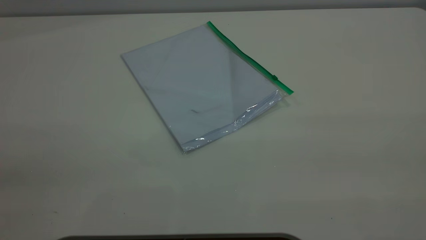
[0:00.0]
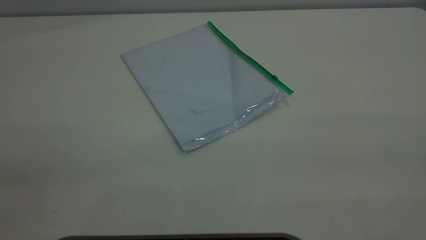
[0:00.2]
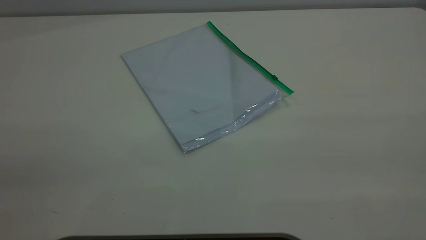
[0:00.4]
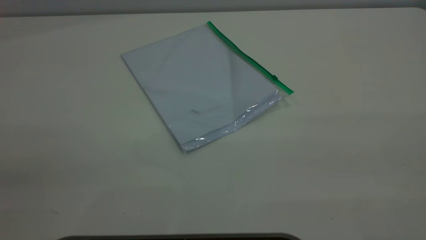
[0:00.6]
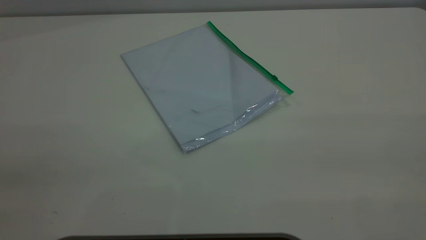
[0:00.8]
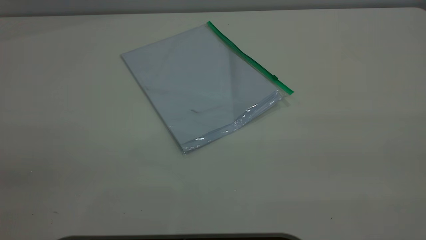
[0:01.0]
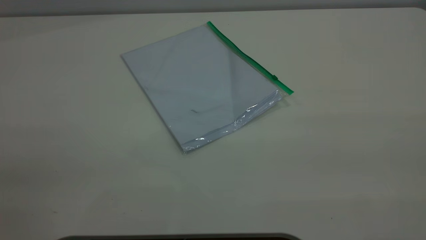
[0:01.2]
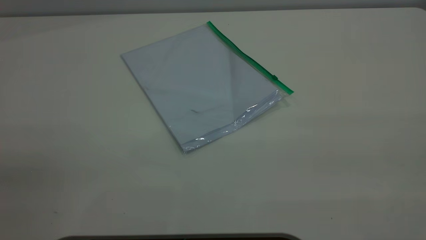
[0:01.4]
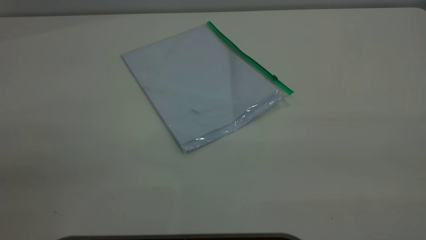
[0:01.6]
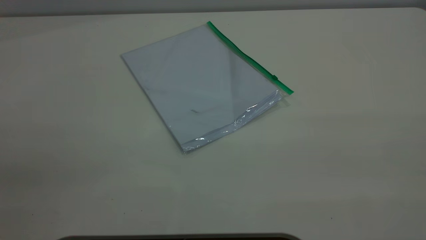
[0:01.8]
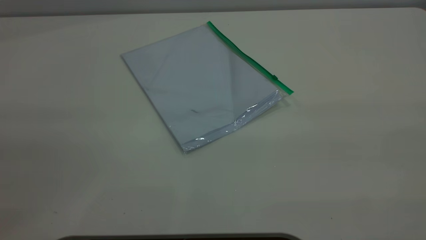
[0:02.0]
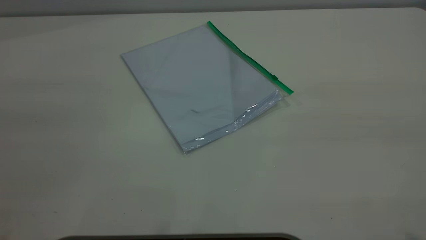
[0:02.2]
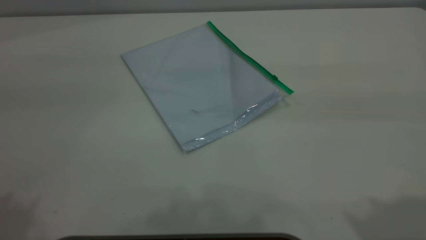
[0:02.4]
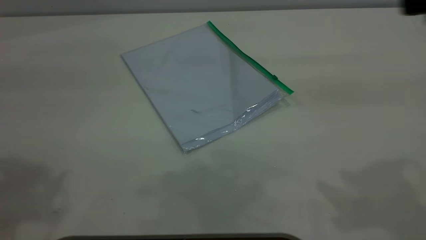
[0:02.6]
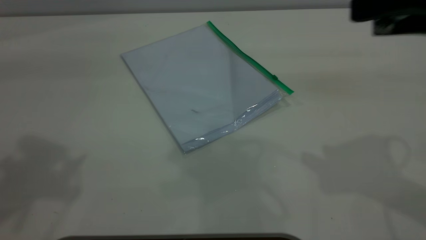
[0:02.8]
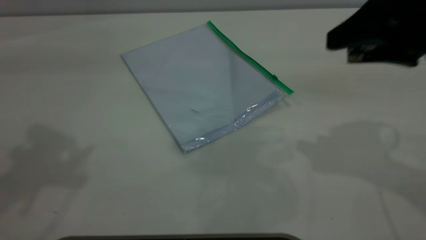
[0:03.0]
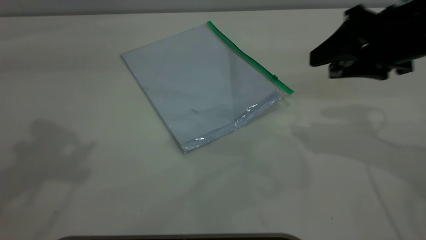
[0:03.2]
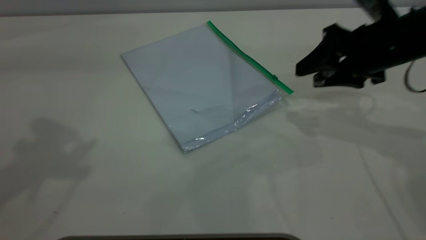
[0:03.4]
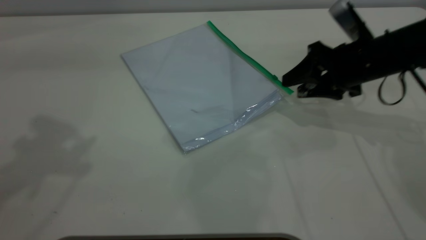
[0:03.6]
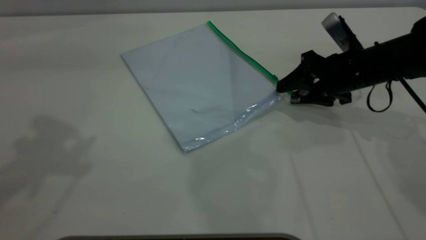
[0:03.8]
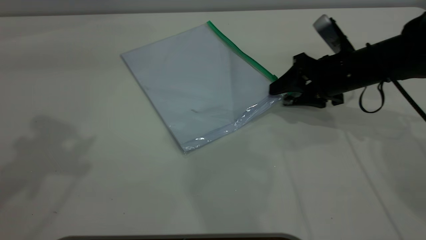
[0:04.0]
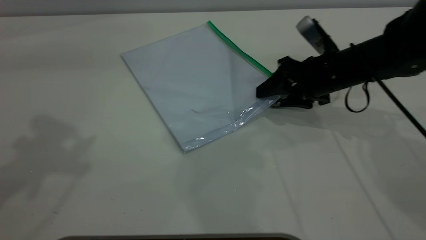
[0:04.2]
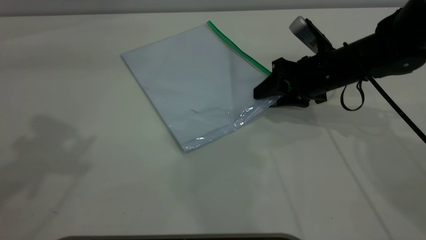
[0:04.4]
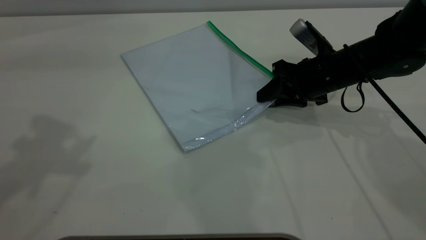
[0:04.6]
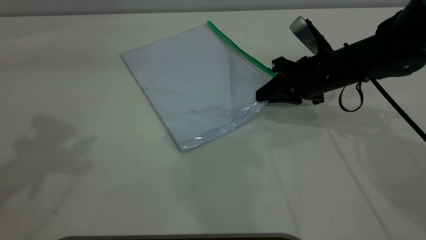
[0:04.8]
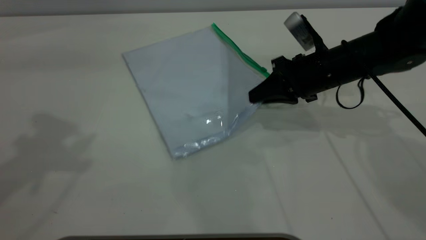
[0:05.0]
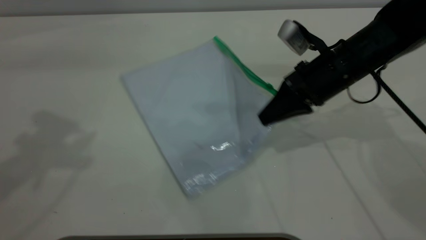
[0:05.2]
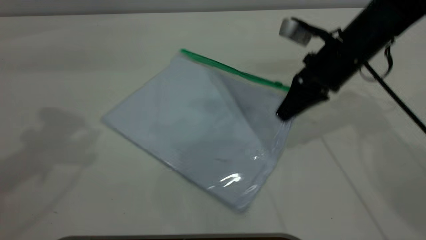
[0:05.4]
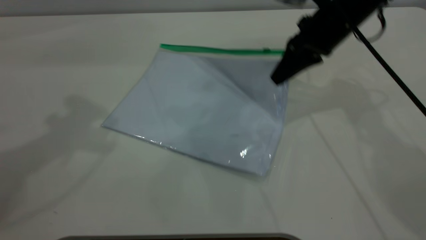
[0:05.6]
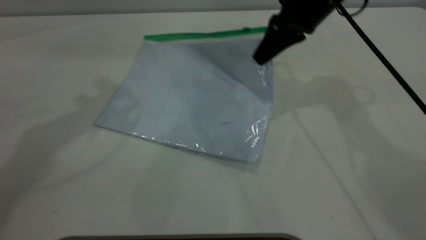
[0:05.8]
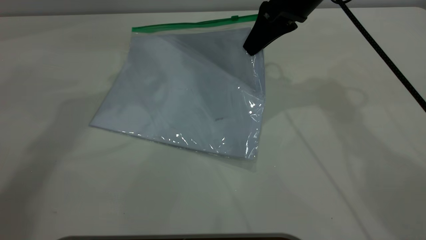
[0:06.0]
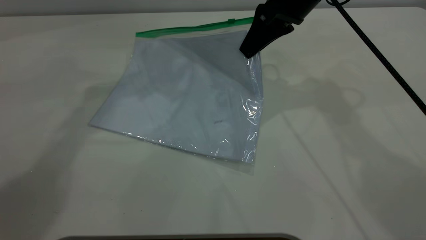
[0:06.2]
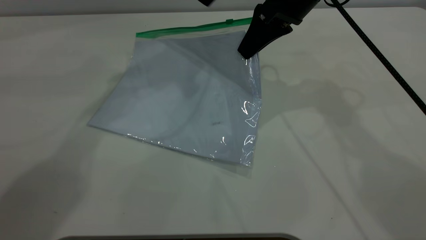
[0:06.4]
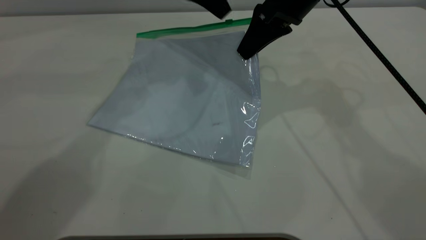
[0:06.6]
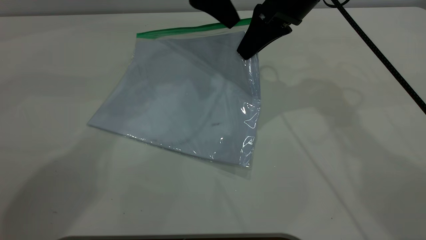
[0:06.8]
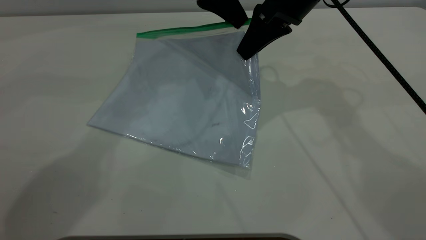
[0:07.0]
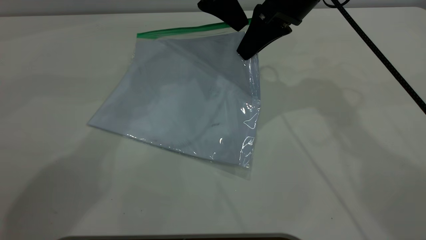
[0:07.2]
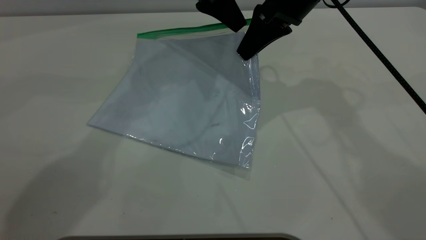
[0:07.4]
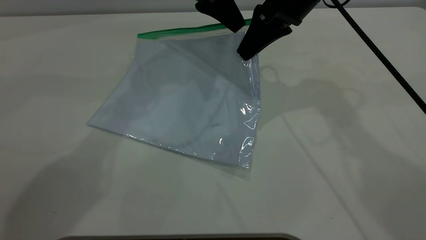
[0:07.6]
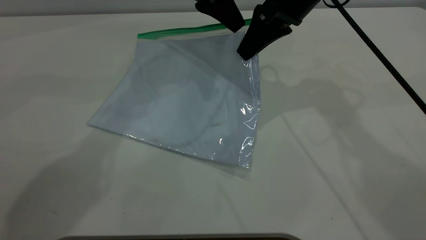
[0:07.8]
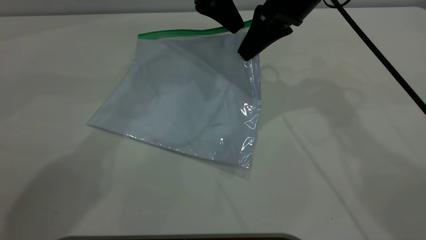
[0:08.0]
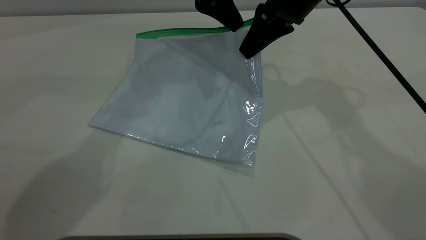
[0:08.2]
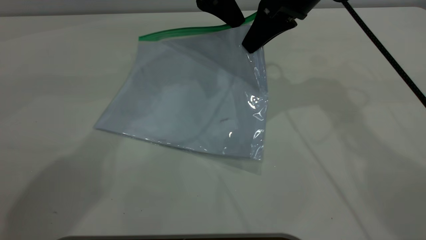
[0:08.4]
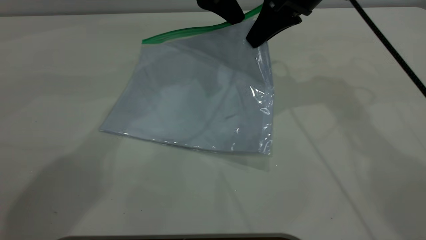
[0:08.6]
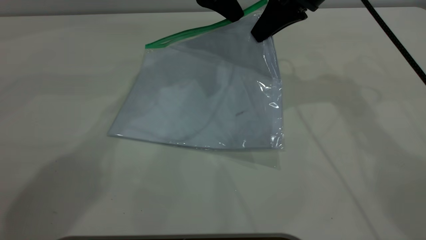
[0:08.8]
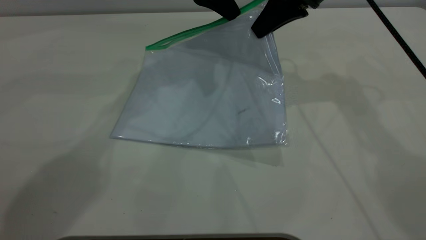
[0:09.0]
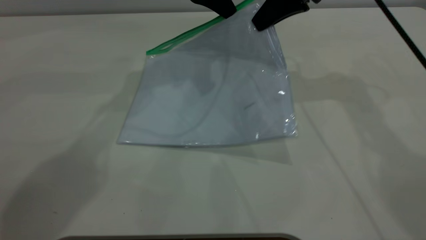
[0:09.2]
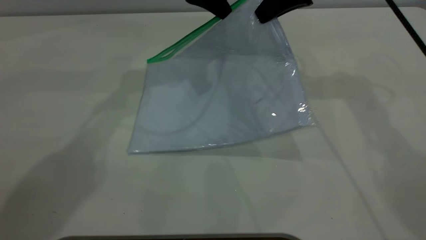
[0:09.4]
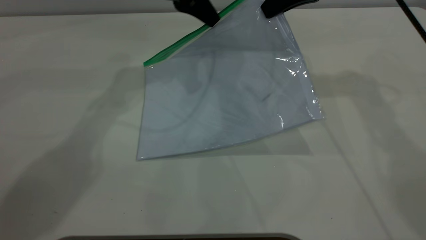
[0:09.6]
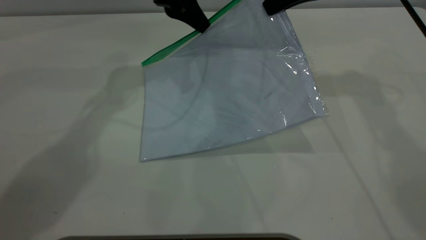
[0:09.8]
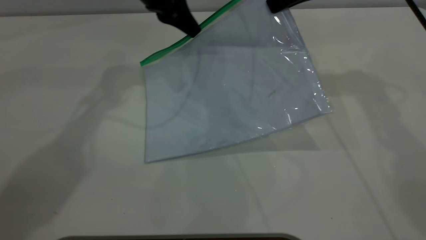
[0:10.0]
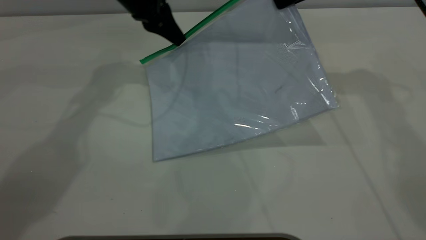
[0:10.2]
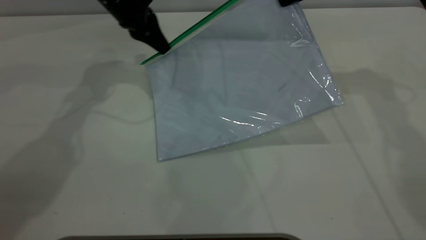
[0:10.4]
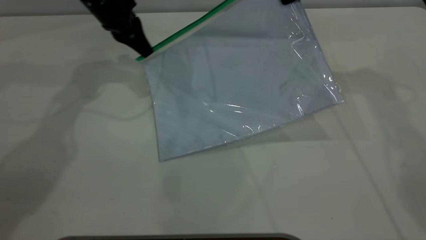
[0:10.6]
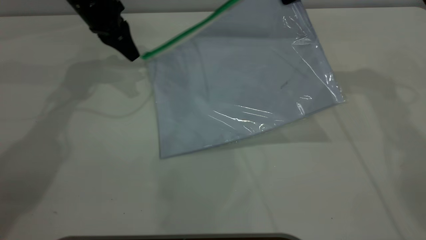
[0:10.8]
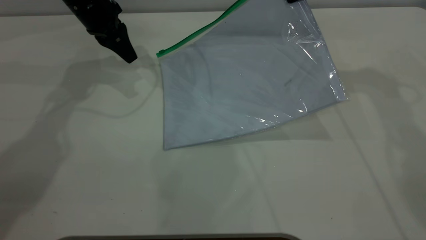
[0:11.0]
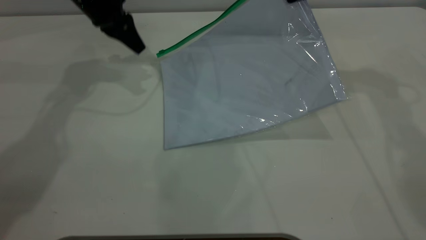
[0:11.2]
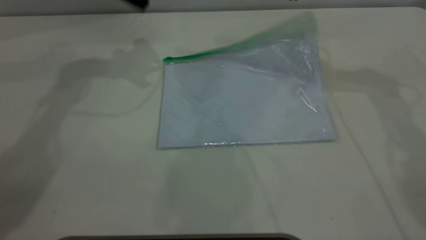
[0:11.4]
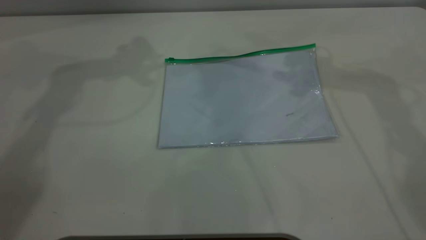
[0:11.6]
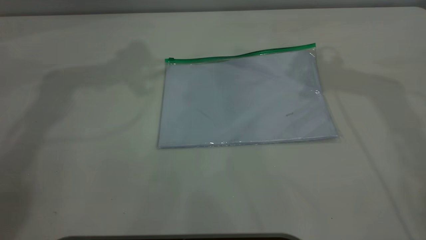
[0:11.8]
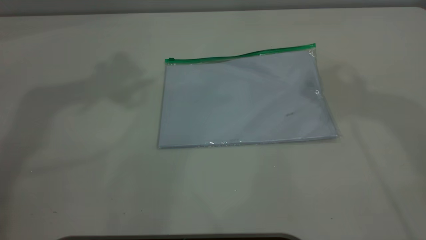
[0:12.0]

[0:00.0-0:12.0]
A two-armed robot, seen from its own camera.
Step, 0:00.0 to 0:06.0: Pick up the transparent plastic bag with the right gripper.
Step, 0:06.4 to 0:11.0: Pulling up the zipper on the transparent plastic bag with the left gripper to close it.
0:00.0 to 0:01.6: Neither gripper changes place.
0:01.6 to 0:03.0: The right gripper shifts approximately 30 cm forward and downward.
0:03.0 to 0:04.4: The right gripper is displaced downward and forward by about 20 cm.
0:04.4 to 0:06.0: The left gripper moves forward, to the right and downward, about 20 cm, while the right gripper travels upward by roughly 15 cm, and closes.
0:06.0 to 0:07.6: The left gripper heads to the right and downward, covering approximately 15 cm.
0:07.6 to 0:09.0: The left gripper closes its fingers.
0:09.0 to 0:10.4: The left gripper travels to the left and downward by roughly 15 cm, while the right gripper shifts some 5 cm to the right.
0:10.4 to 0:12.0: The right gripper shifts about 25 cm upward and backward, and opens. Meanwhile the left gripper is displaced upward by approximately 35 cm, and opens up.

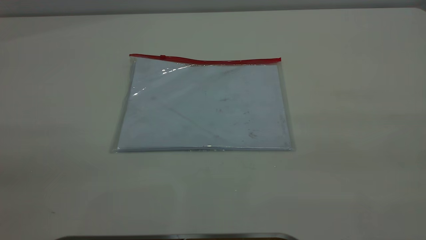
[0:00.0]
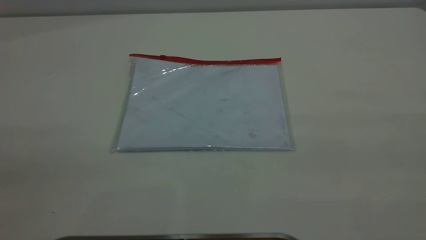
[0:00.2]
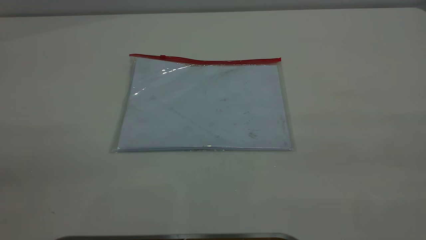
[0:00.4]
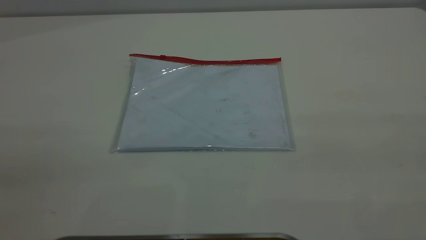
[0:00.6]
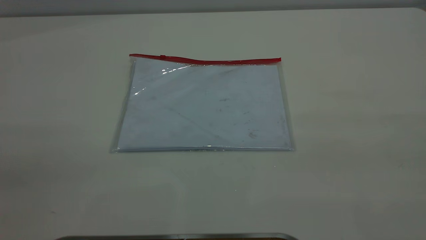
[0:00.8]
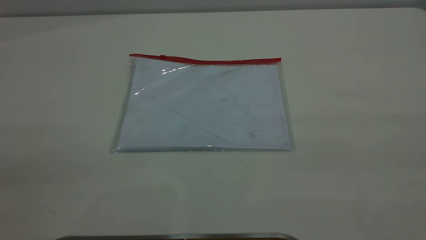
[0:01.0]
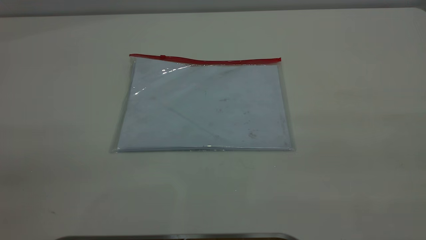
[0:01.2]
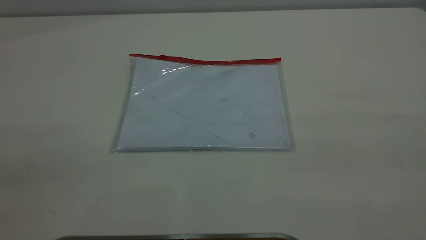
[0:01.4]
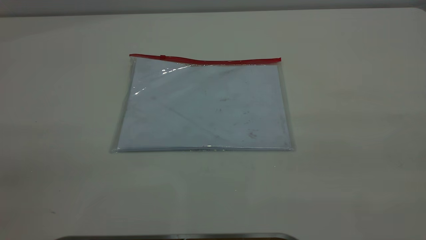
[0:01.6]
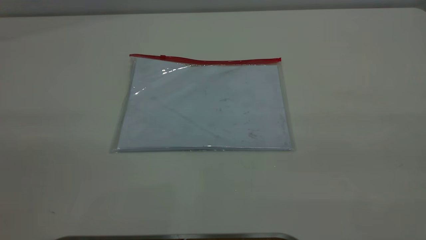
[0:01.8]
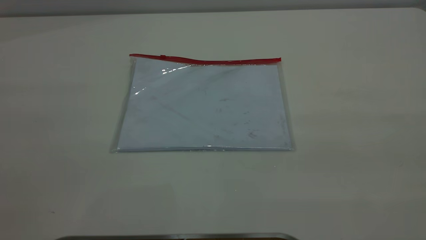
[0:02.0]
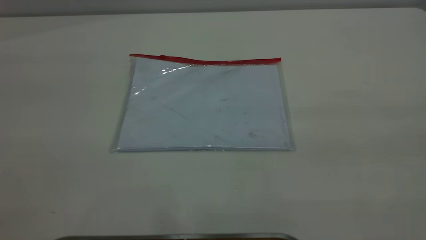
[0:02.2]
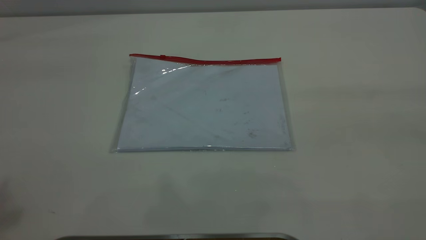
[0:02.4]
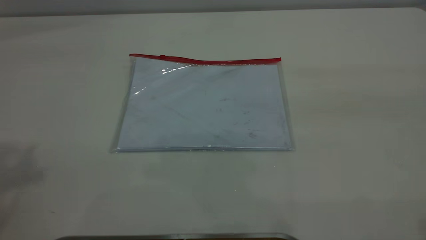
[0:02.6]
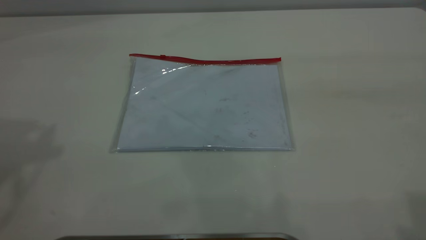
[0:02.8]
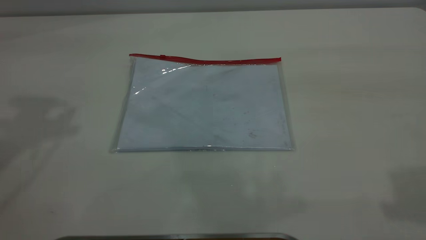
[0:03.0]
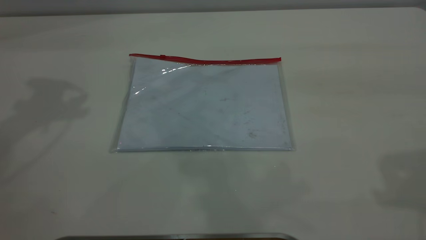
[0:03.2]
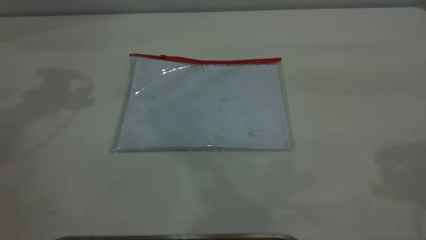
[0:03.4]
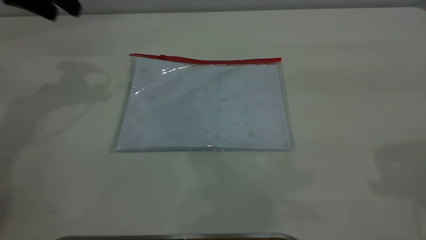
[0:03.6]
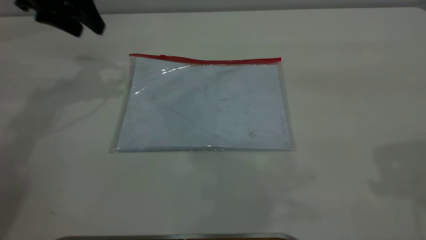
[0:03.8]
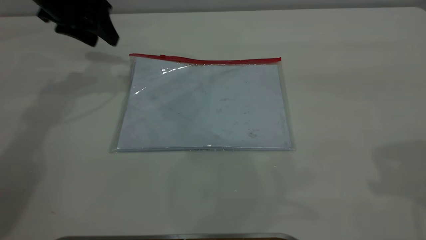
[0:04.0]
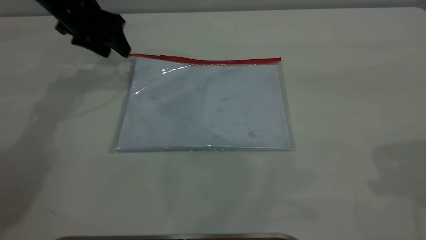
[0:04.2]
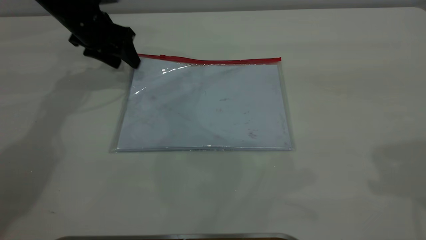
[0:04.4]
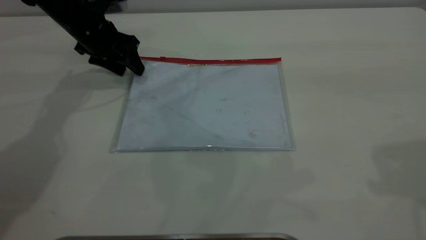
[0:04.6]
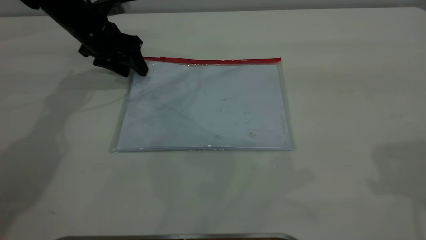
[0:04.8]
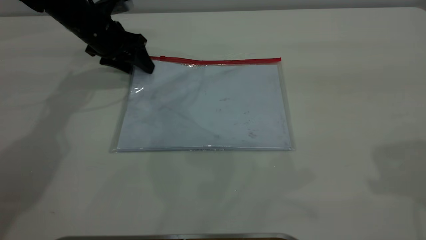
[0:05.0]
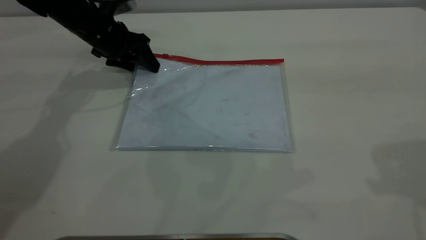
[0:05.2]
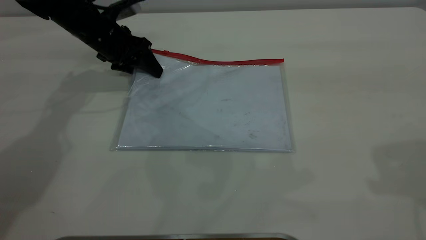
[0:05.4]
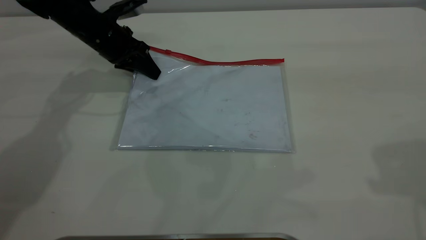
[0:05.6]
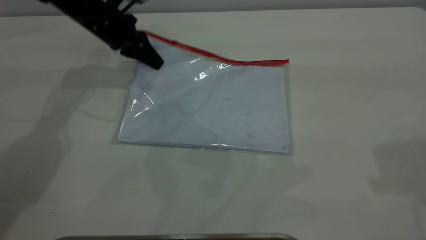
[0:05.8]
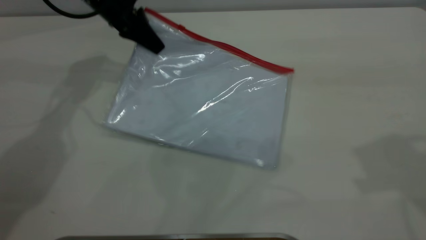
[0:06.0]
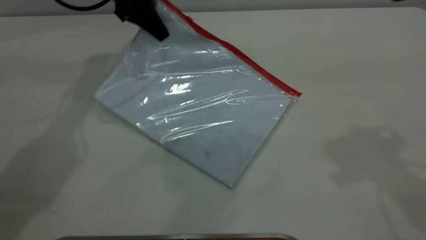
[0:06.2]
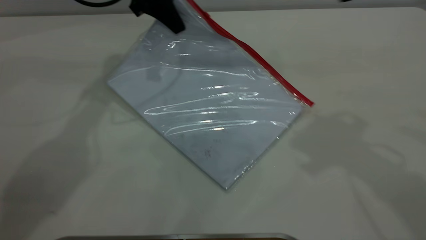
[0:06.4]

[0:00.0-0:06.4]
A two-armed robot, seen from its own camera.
Step, 0:00.0 to 0:05.8: Pick up the transparent plastic bag with the left gripper.
0:00.0 to 0:01.6: Neither gripper changes place.
0:03.2 to 0:04.8: The left gripper goes approximately 25 cm downward and forward.
0:04.8 to 0:06.4: The right gripper goes approximately 10 cm to the left and forward; the left gripper shifts some 15 cm to the right and upward, and closes.
